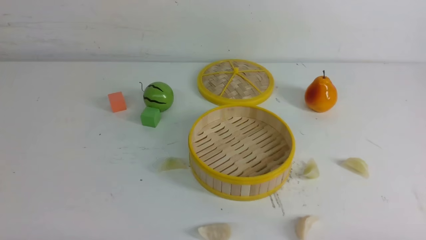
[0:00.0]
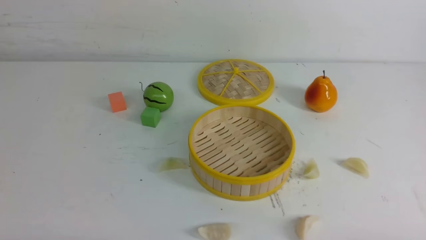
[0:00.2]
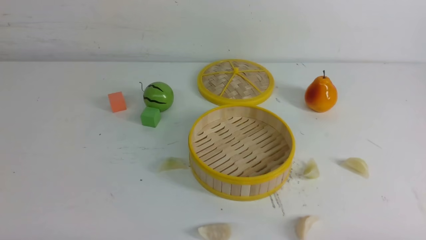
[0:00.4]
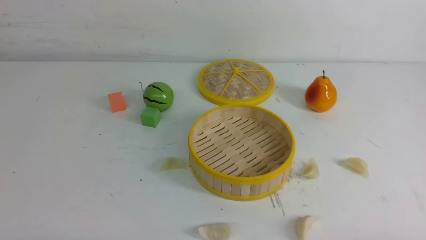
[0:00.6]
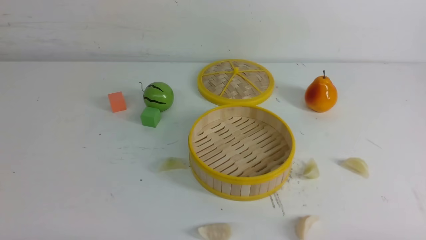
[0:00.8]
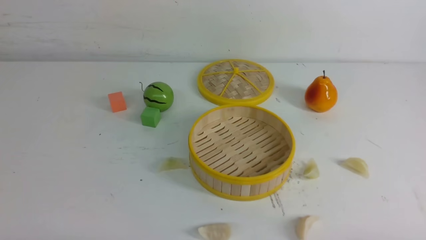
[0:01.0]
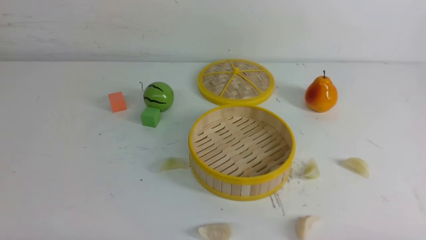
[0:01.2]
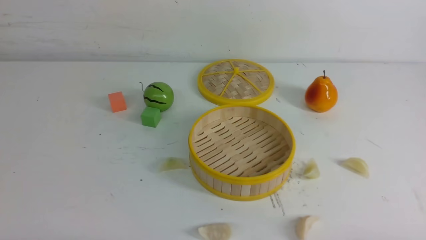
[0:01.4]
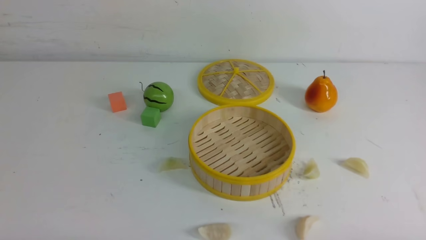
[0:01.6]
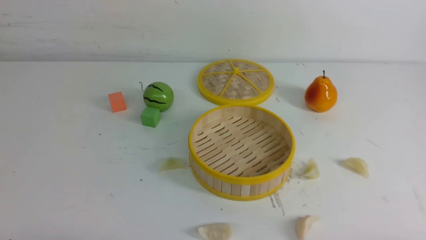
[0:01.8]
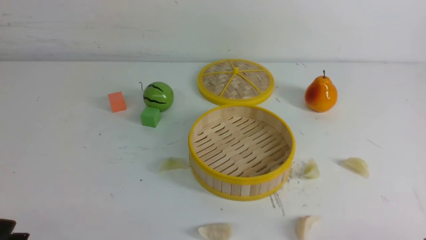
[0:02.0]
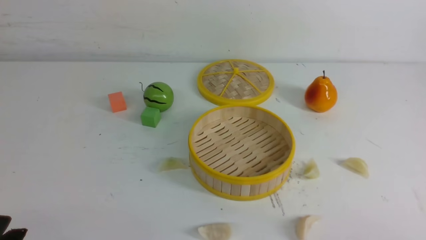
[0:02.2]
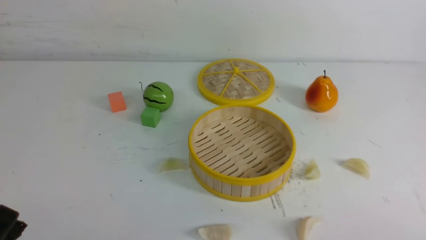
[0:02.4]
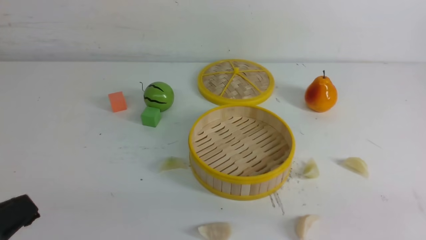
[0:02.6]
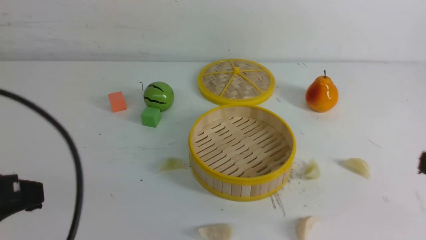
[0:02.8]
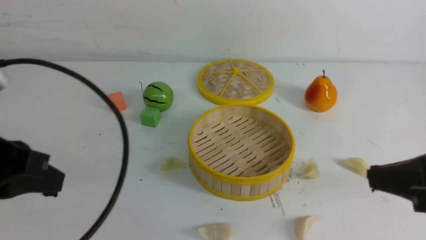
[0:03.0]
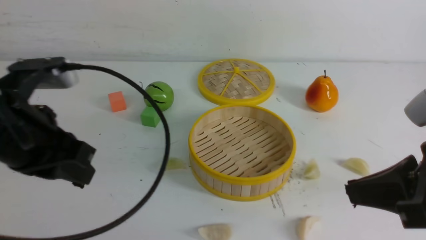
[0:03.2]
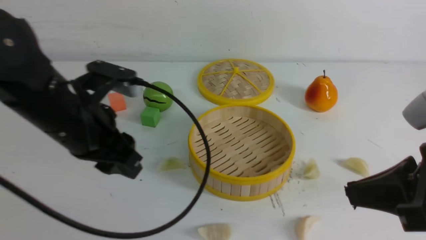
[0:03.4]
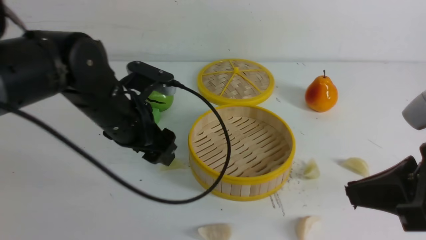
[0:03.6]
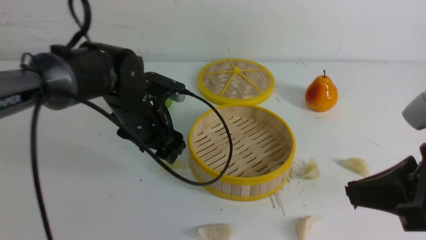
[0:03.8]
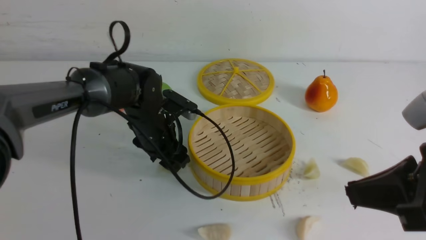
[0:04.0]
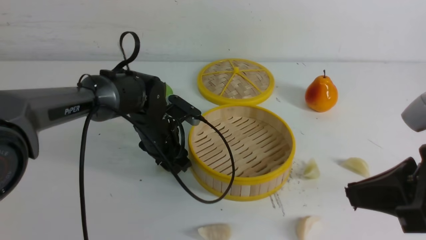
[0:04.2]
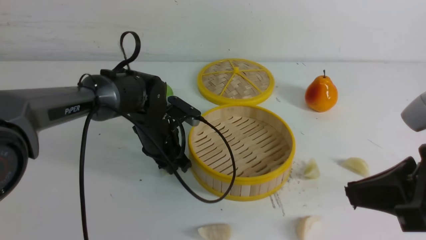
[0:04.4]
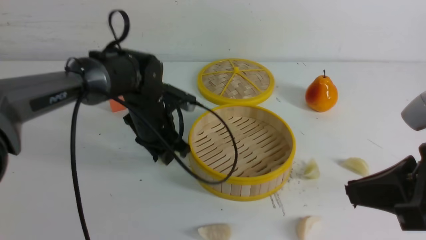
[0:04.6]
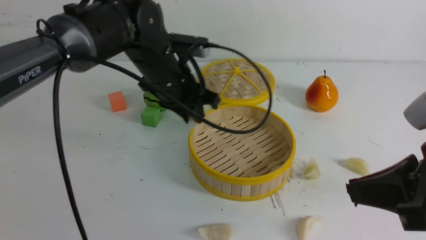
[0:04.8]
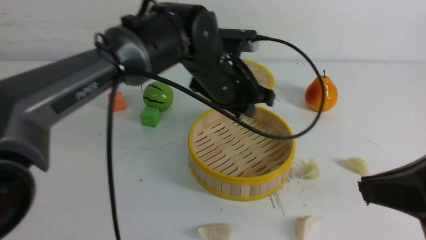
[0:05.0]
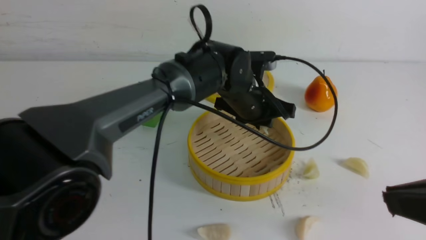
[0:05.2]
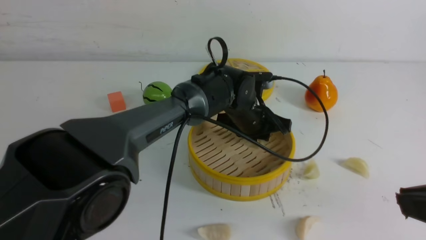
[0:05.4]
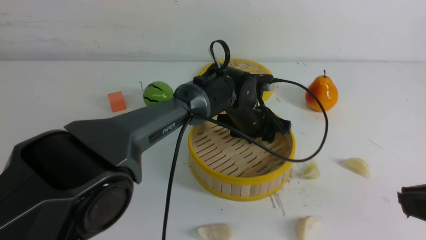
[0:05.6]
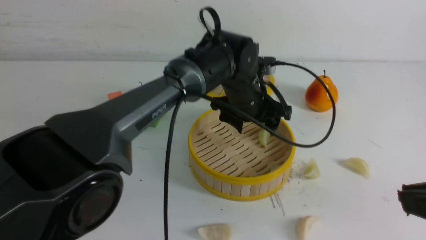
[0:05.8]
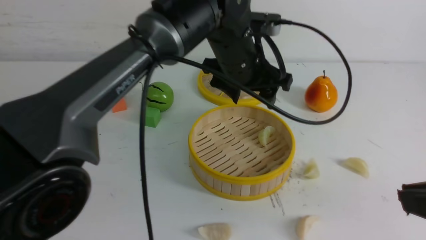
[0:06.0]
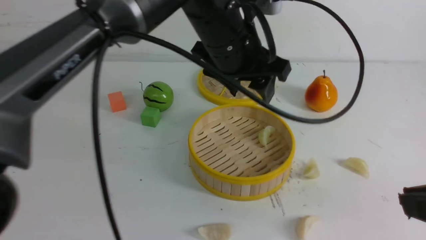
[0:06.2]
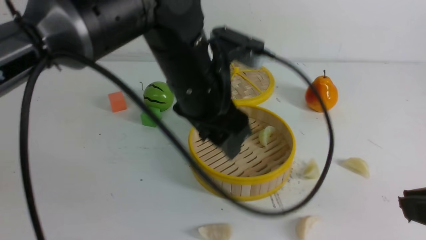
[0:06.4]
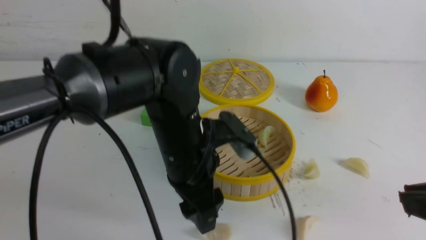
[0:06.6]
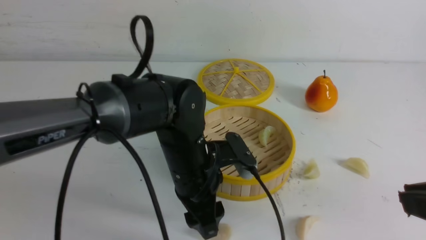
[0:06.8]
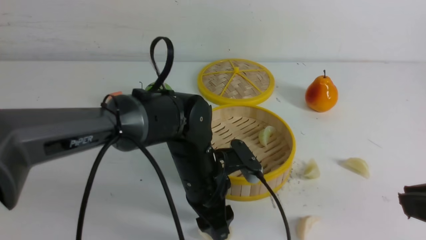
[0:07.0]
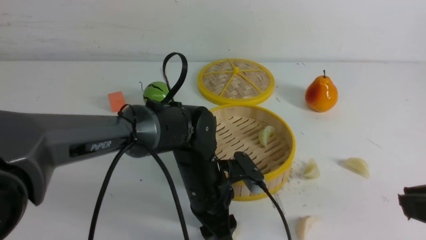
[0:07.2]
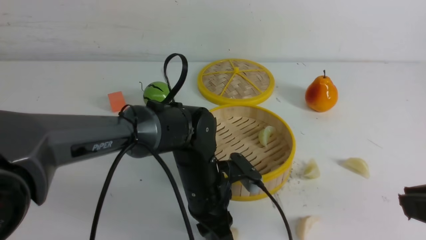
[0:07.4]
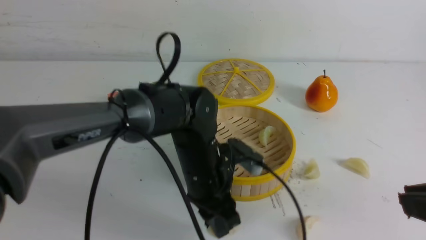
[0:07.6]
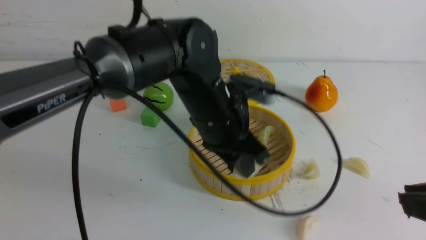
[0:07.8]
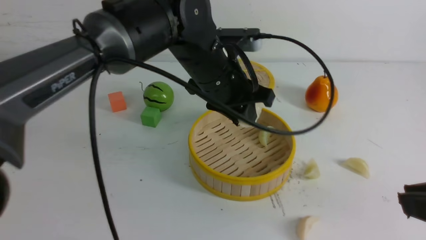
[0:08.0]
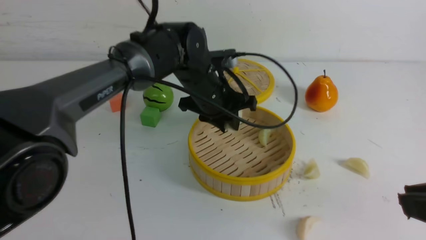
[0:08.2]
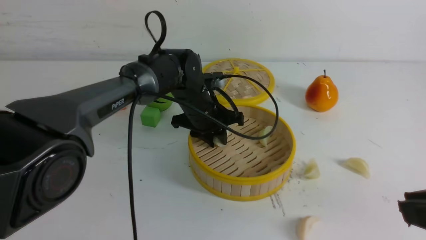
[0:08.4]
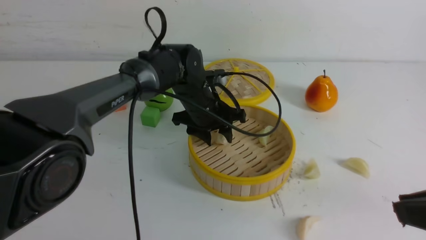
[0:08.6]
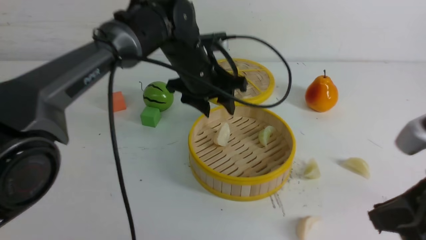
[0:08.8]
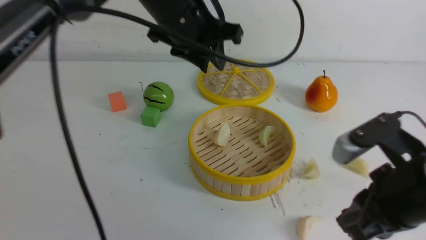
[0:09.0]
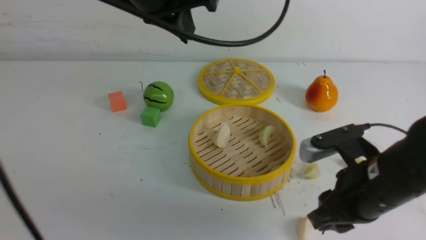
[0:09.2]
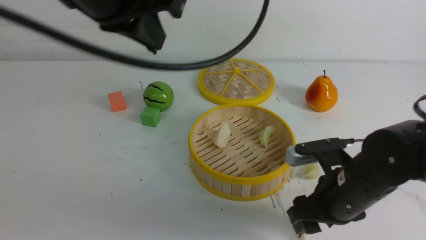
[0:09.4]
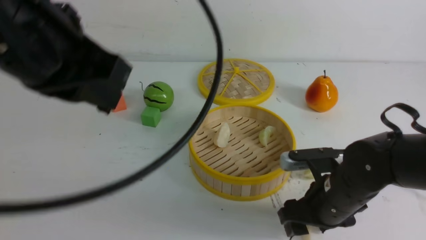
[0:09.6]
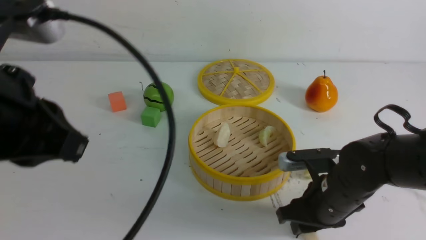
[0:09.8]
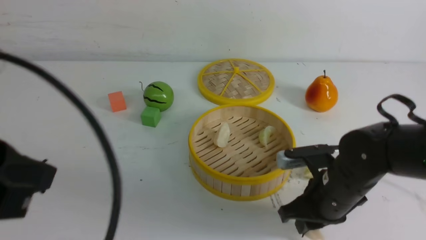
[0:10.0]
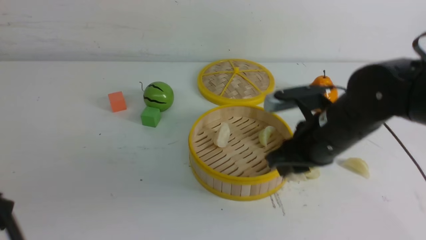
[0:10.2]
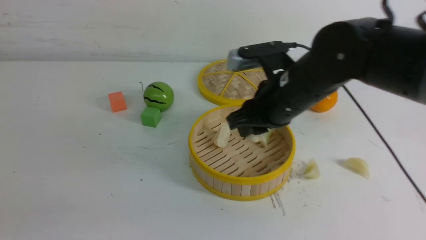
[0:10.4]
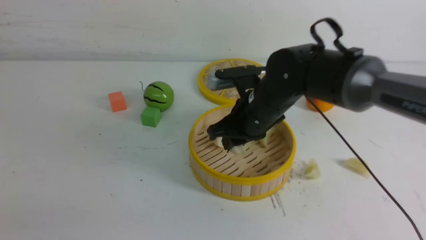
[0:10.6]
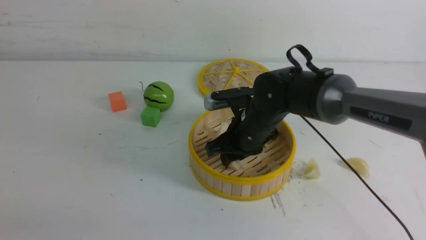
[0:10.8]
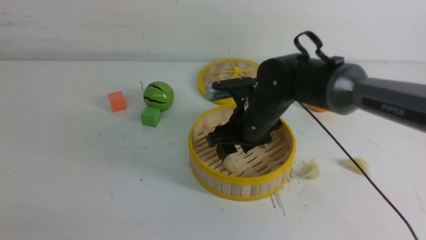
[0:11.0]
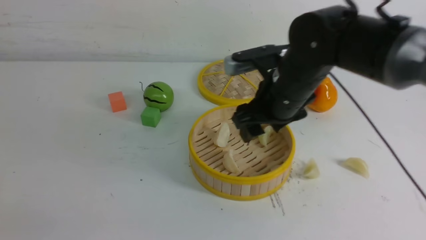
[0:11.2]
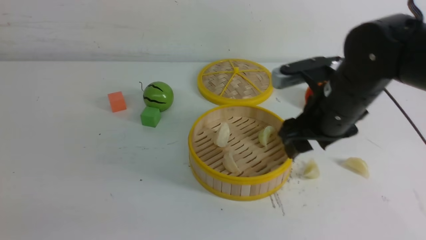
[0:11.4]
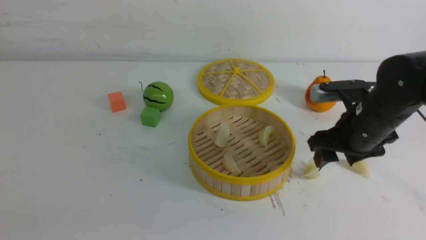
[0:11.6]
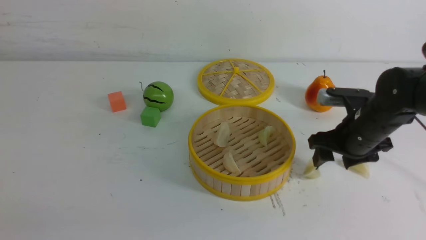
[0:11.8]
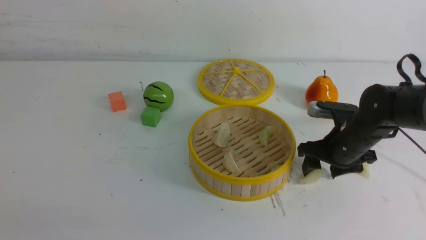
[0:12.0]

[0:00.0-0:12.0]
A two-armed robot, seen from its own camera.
Task of the whole recording: put the dumplings into the steamer on the white table.
Step, 0:00.0 to 0:04.4: use the left arm to grab a dumpling.
Step, 0:04.6 to 0:05.6: use the left arm to put the dumpling into the steamer.
Step, 0:05.8 to 0:07.4: use the left arm to grab a dumpling.
Step, 0:07.6 to 0:08.6: use the left arm to put the dumpling into the steamer.
Step, 0:08.8 to 0:09.8: use the right arm to grab a dumpling.
Step, 0:10.2 to 0:10.8: use the right arm to put the dumpling into the steamer.
0:01.6 to 0:03.0: The grippers both shift upward and forward by some 20 cm. The left gripper closes up. The right gripper closes up.
0:03.0 to 0:04.4: The left gripper is displaced forward, downward and to the right by some 35 cm, and opens.
0:04.4 to 0:06.0: The left gripper goes roughly 20 cm to the right and upward, and opens its fingers; the right gripper moves backward, roughly 5 cm.
0:06.0 to 0:07.6: The left gripper goes approximately 15 cm downward and backward, and closes up.
0:07.6 to 0:09.0: The right gripper goes roughly 10 cm forward and downward. Meanwhile the left gripper moves up and down over roughly 15 cm, changing direction 2 times.
0:09.0 to 0:10.4: The left gripper shifts roughly 40 cm backward and to the left, and closes up; the right gripper moves forward and to the left, about 20 cm, and opens, then closes again.
0:10.4 to 0:12.0: The right gripper is displaced to the right, downward and forward by roughly 15 cm, and opens its fingers.

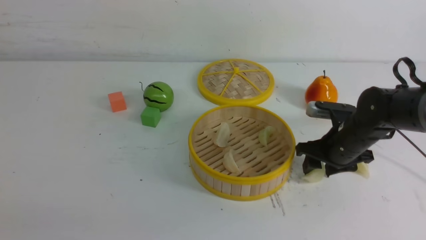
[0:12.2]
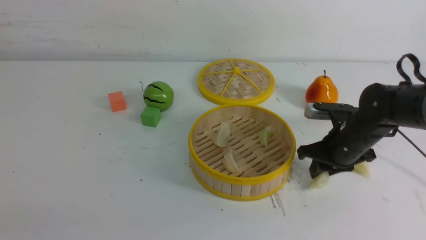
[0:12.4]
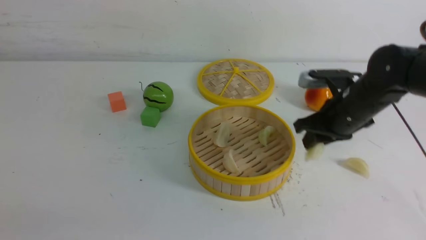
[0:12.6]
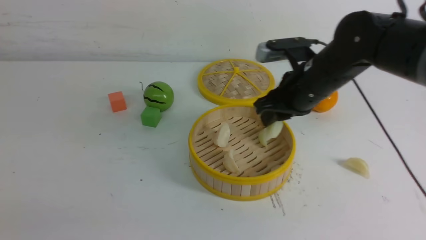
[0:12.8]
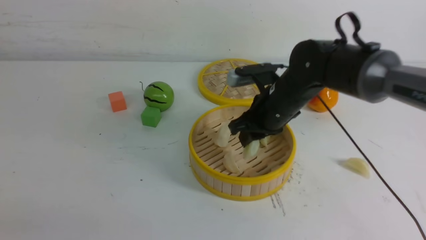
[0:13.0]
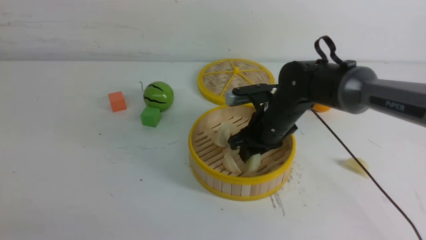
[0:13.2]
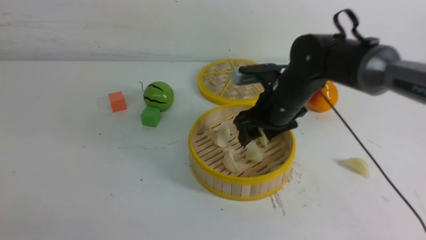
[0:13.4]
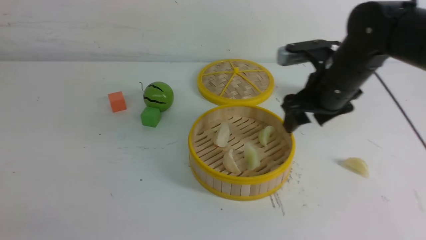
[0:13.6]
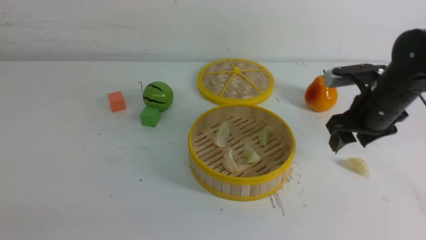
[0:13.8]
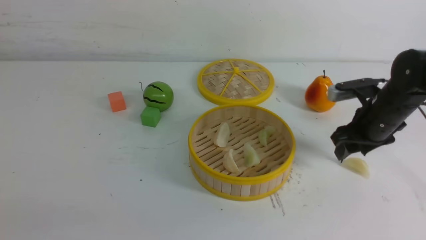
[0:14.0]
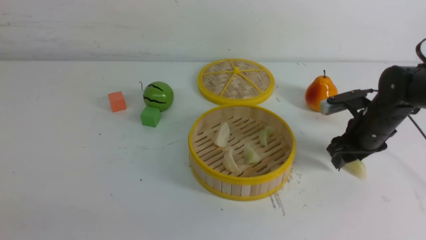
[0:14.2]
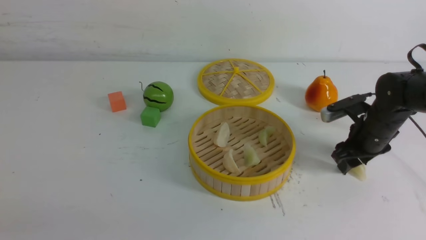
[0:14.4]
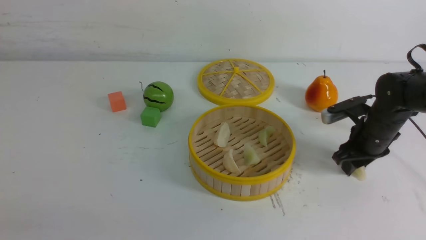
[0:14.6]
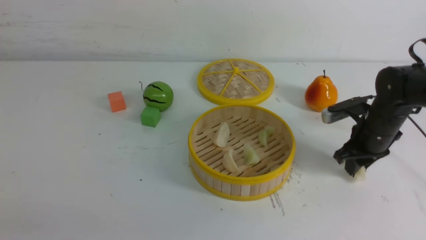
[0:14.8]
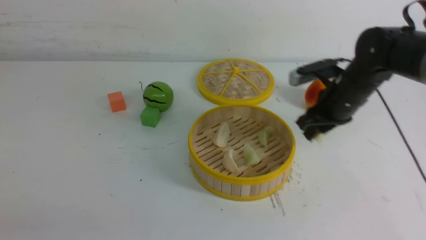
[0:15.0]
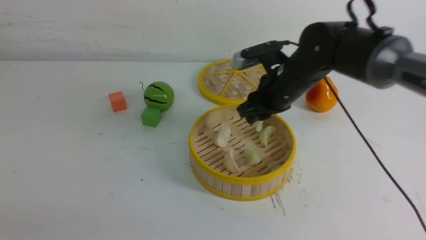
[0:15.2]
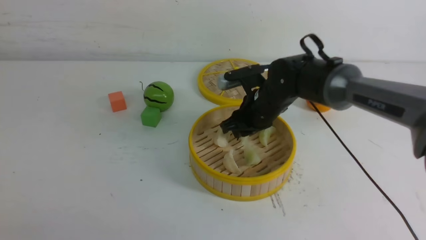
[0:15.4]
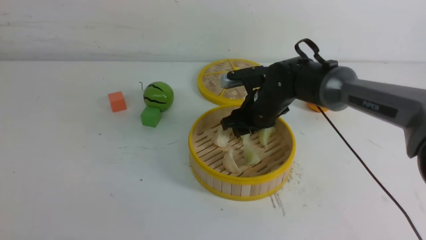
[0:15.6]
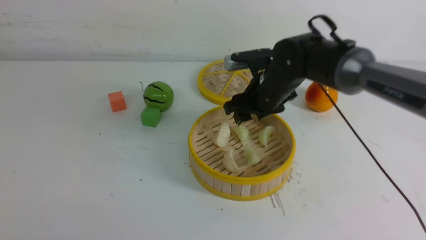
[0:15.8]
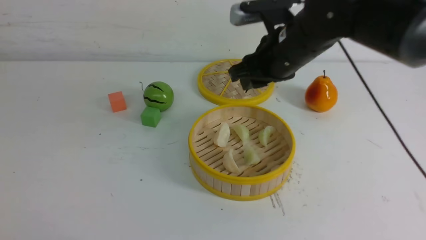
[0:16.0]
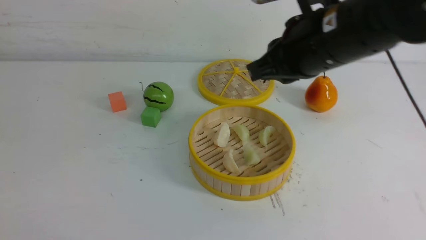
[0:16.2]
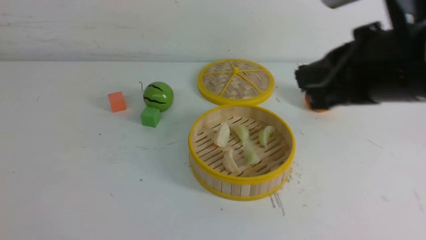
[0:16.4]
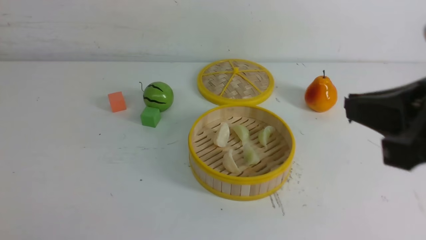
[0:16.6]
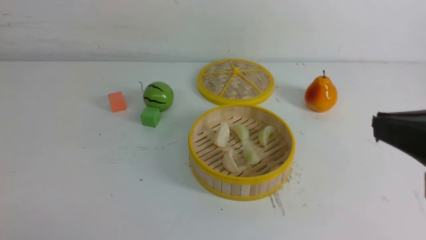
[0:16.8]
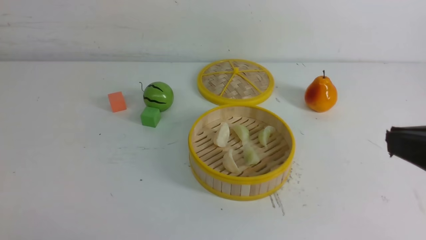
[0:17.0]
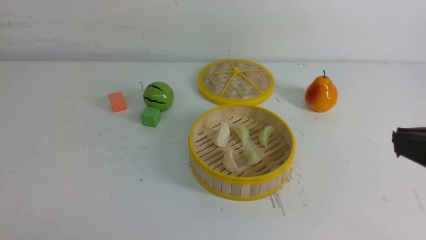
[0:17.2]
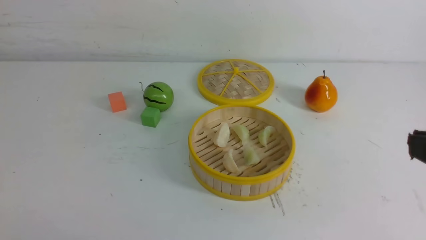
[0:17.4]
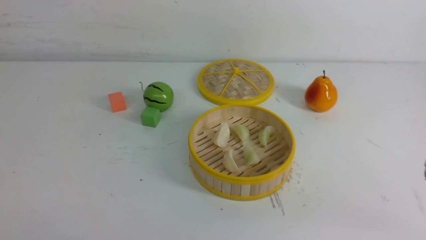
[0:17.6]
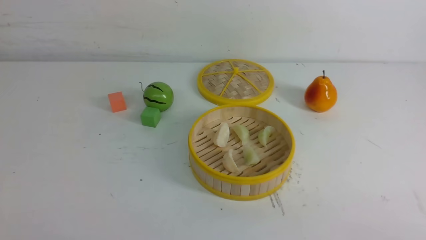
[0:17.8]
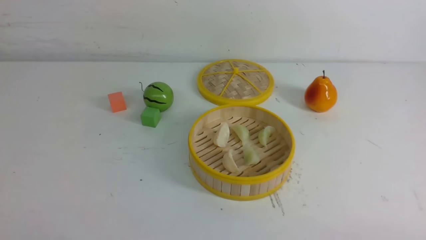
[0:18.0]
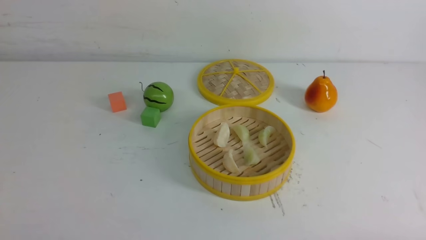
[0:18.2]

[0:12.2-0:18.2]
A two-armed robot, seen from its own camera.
Task of the whole recording: put the dumplings into the steamer on the white table.
Step, 0:12.6 to 0:13.2: use the right arm to put the dumpling into the steamer.
Step, 0:13.4 to 0:14.6: use the right arm to grab a dumpling.
Step, 0:14.8 to 0:15.6: use the right arm to put the dumpling into the steamer.
0:12.2 to 0:13.8: The right gripper moves upward, roughly 10 cm, reaches approximately 10 cm to the left, then returns, and closes, then reopens.
0:13.8 to 0:15.2: The right gripper shifts roughly 5 cm to the left, and closes its fingers.
0:15.2 to 0:16.6: The left gripper shifts approximately 5 cm downward; the right gripper travels backward and upward by some 30 cm, and closes up.
0:16.6 to 0:18.2: The right gripper goes some 30 cm downward, to the right and backward.
